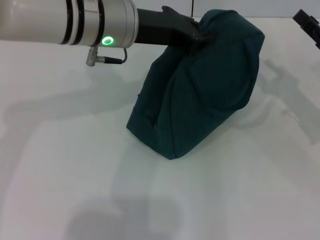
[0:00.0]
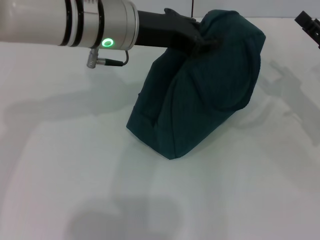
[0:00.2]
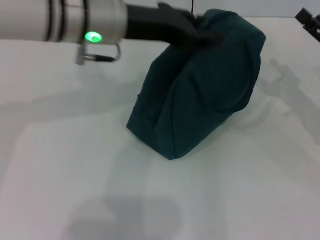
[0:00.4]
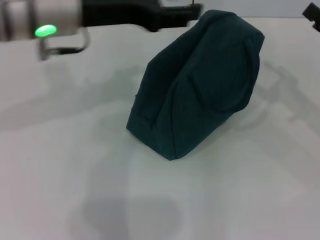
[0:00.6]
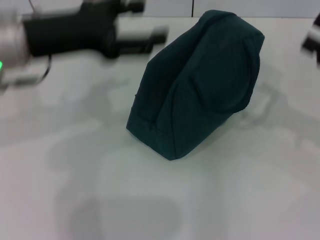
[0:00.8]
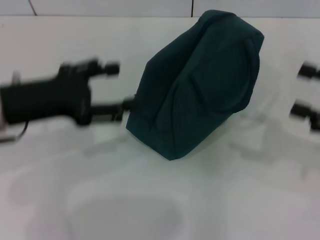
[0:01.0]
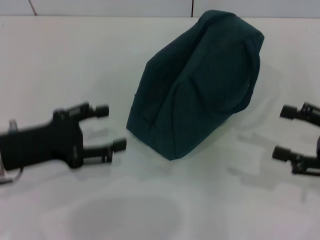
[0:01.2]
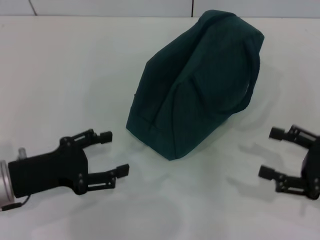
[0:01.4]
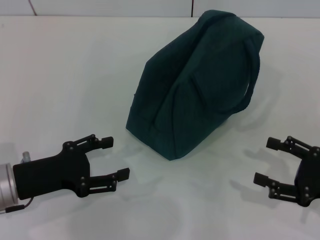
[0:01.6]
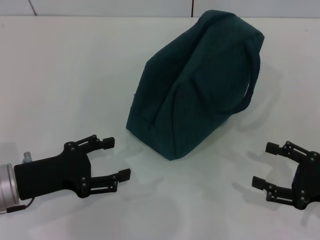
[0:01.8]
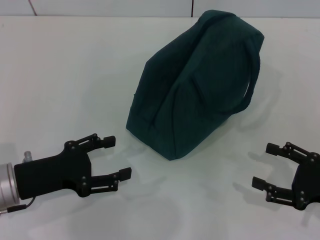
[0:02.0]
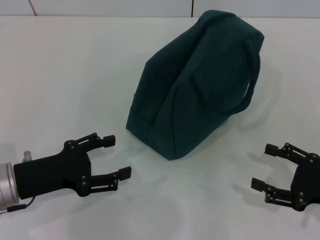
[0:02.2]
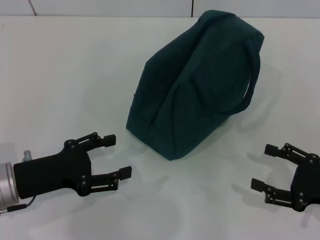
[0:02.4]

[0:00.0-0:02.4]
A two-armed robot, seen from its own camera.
0:00.0 to 0:01.2: The left gripper shifts approximately 25 cm to the left, backward and downward, and opens; the right gripper goes about 10 cm backward, and opens.
0:01.2 to 0:02.4: The right gripper goes about 5 cm downward. The left gripper shifts by approximately 5 cm.
